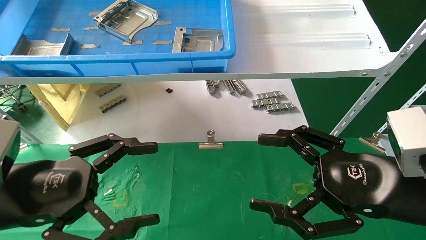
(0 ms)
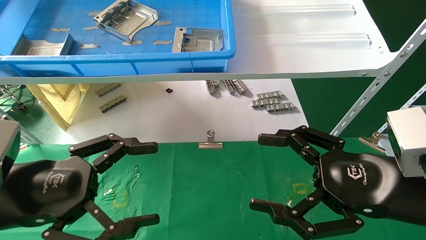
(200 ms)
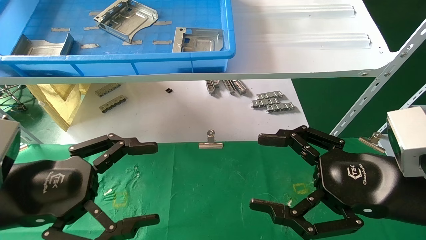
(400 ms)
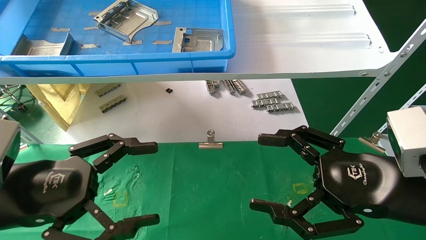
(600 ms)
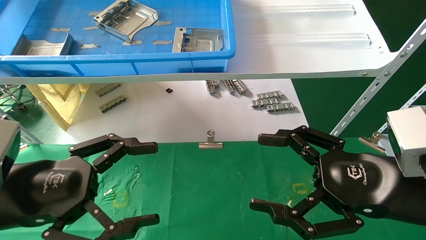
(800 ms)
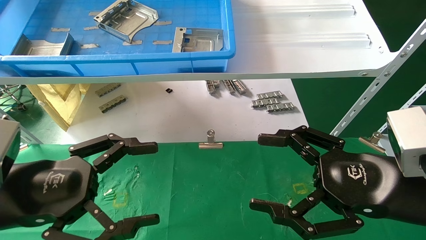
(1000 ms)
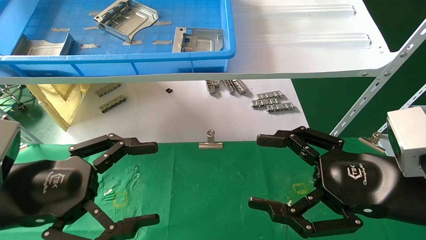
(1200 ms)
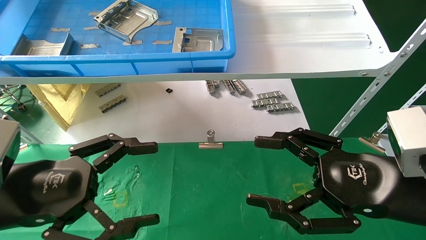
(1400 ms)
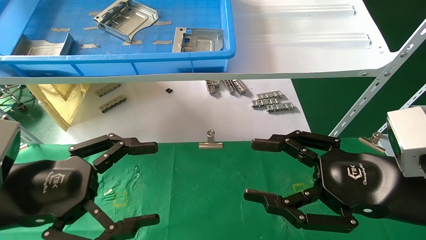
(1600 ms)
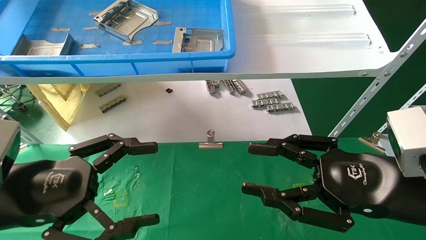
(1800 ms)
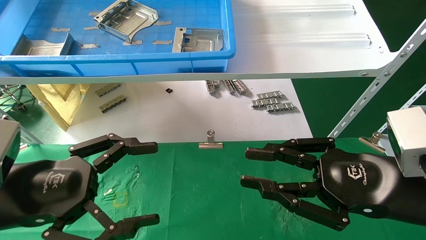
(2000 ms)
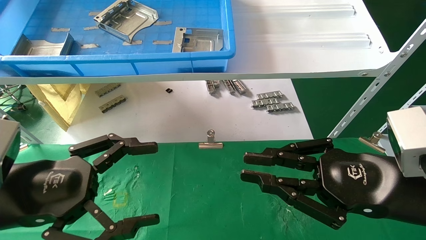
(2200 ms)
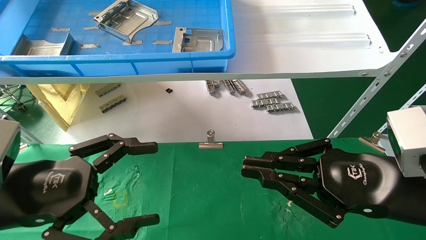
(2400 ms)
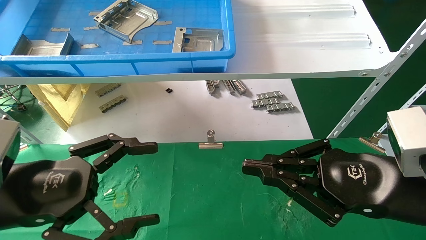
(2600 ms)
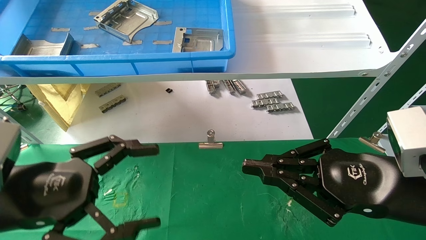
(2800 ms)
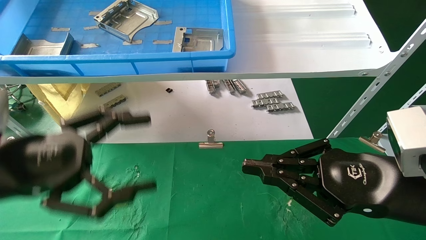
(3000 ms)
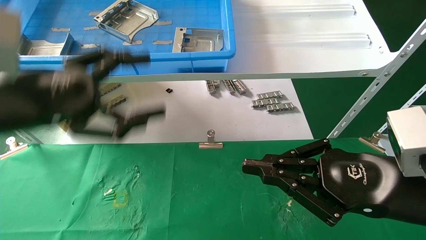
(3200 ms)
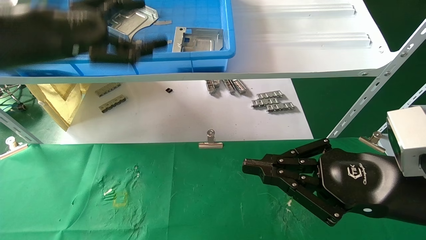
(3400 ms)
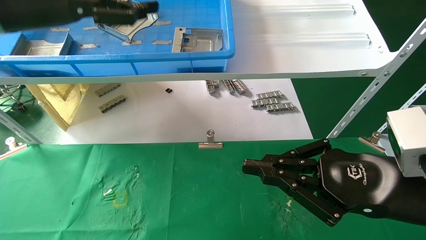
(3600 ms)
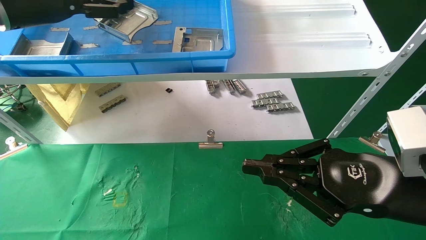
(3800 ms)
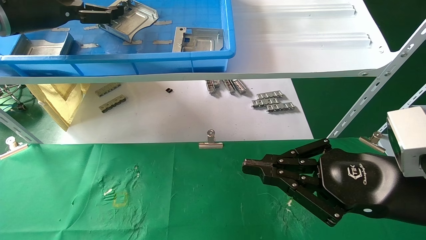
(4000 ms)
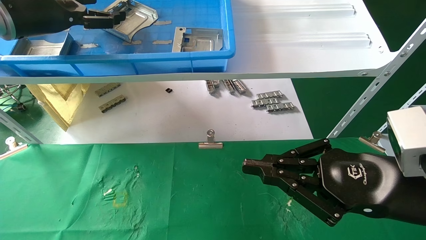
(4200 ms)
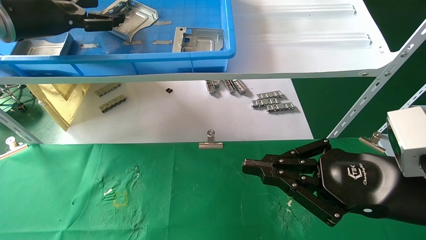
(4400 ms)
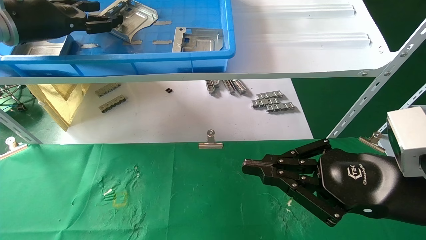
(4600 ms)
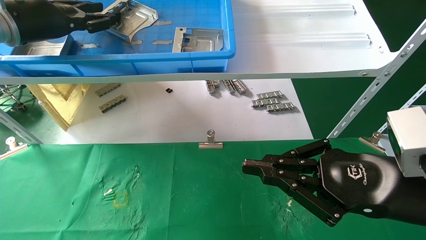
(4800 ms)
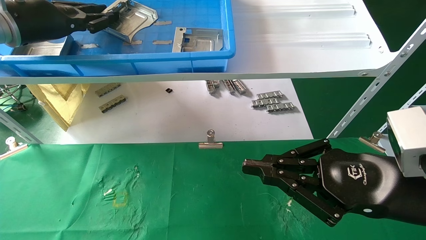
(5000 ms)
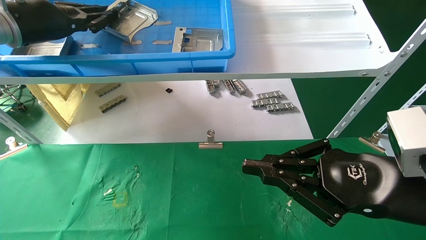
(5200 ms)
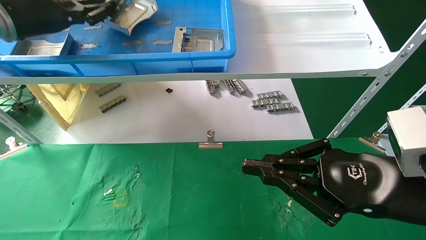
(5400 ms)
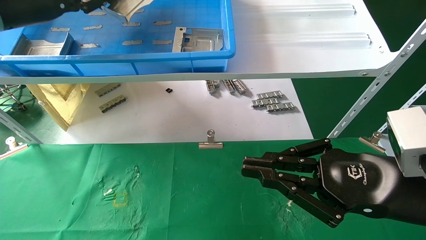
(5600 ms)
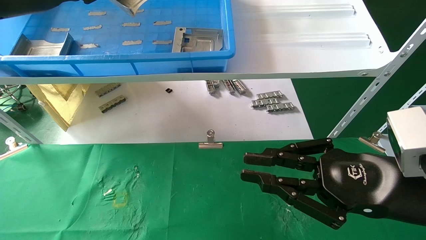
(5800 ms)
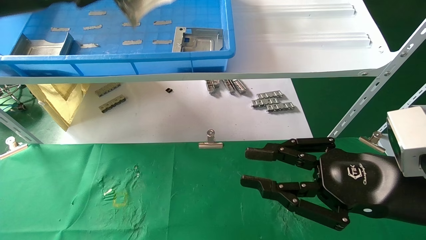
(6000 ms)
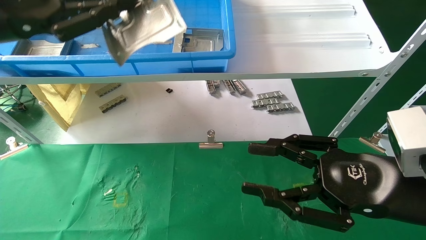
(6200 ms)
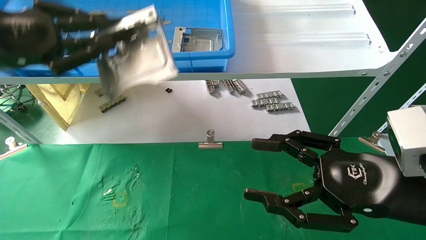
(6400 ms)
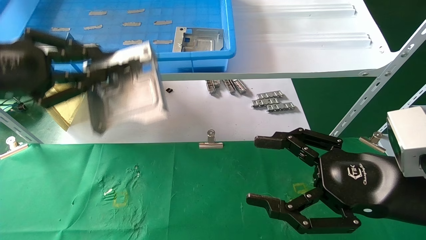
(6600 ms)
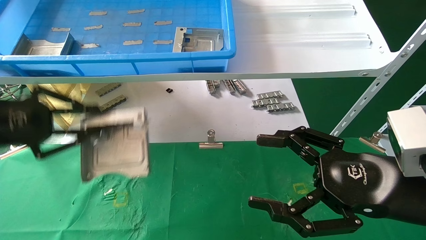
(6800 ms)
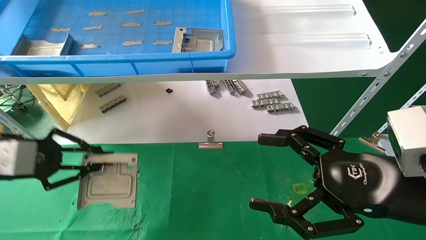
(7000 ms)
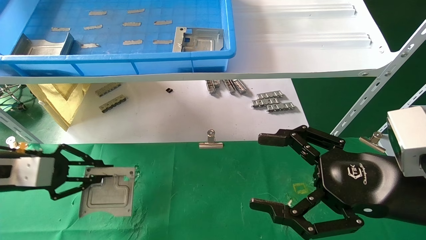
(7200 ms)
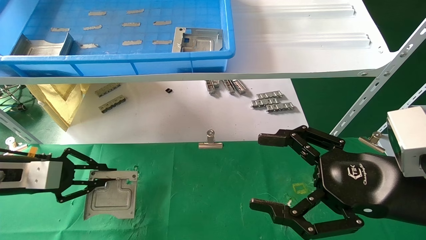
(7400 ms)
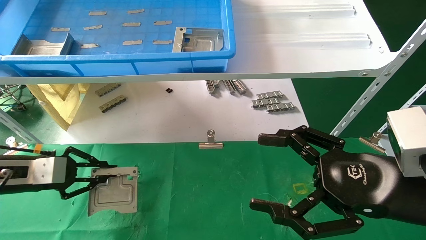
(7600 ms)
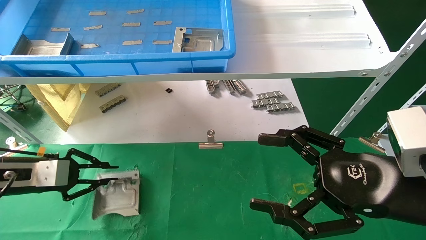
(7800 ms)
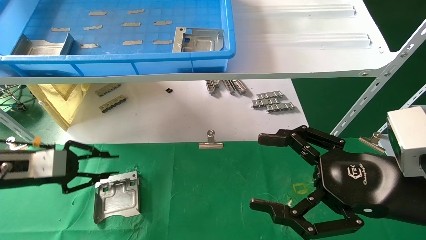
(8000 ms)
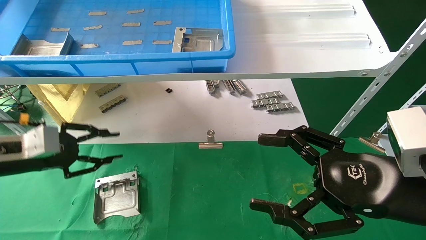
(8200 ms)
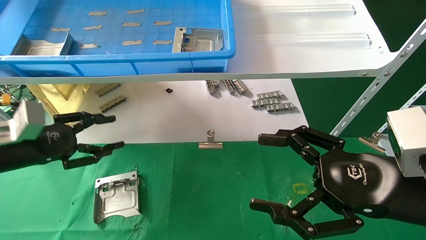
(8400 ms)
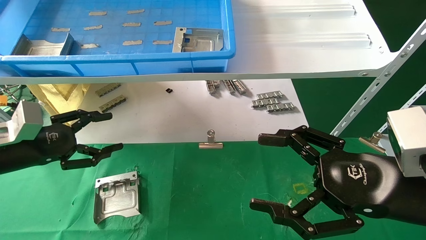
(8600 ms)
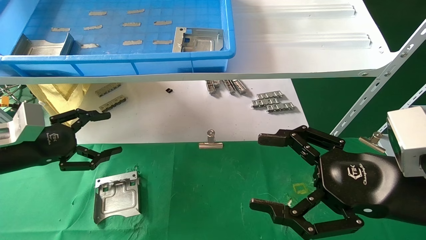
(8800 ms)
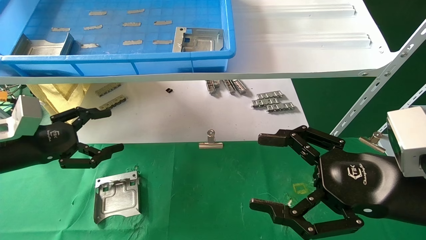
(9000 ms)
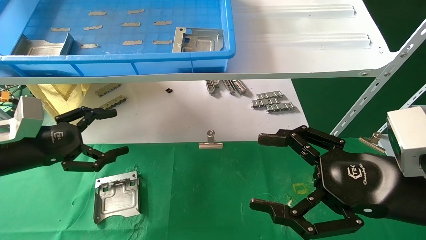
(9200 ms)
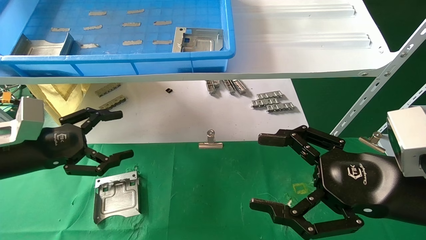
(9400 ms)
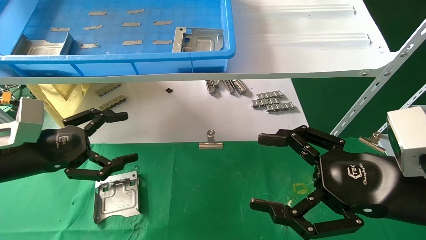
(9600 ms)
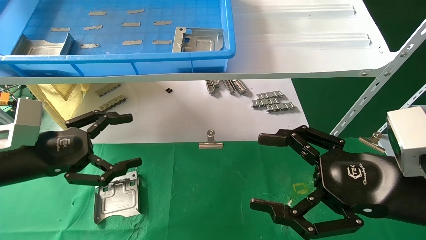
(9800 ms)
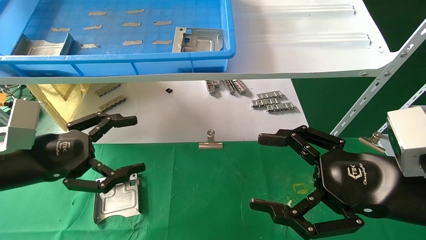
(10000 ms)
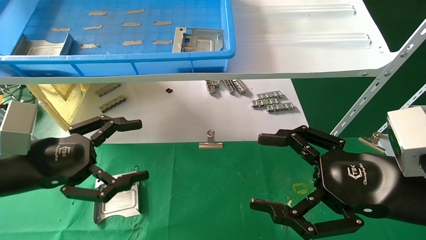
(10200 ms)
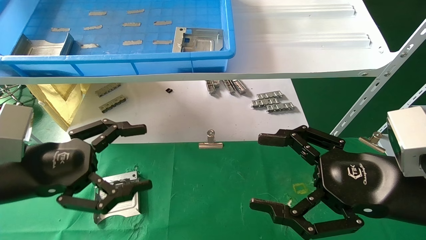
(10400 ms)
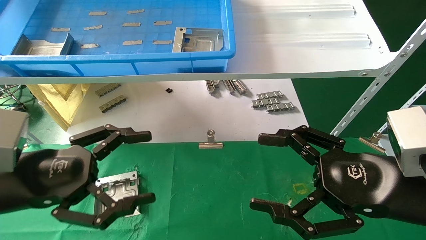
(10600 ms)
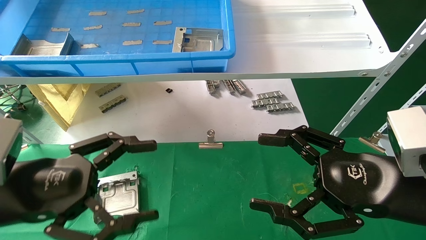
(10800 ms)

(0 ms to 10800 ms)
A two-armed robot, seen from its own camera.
Task of the whole recording: use the mechanical arm to pick up the parts and place them on the table.
Step, 2200 ms - 4200 ms: Pick up the hard drive bracket from the feeding area.
Step, 4400 ms - 8600 ms: Place the hard drive bracket into the box.
0 ms - 1600 ms: The two grippers keep their place.
1600 ms - 3000 ms: The right gripper closes up; the left gripper shifts by some 5 cm.
3000 ms - 4600 ms: The left gripper moves forward and upward, approximately 25 cm.
4600 ms - 6200 ms: The left gripper shifts approximately 10 cm backward, and closes up; the right gripper opens up.
6200 ms - 7800 ms: The right gripper opens up; the left gripper heads downward, covering some 25 cm.
7800 ms - 9200 ms: The left gripper opens up.
9200 ms - 10800 ms: The left gripper heads backward and to the right, covering approximately 15 cm.
